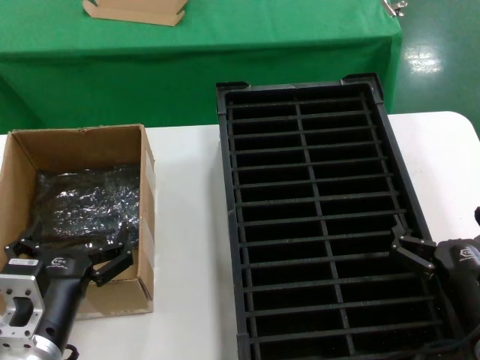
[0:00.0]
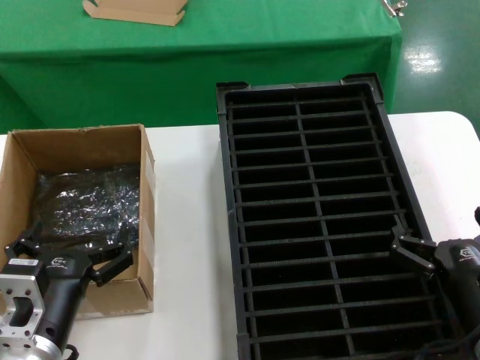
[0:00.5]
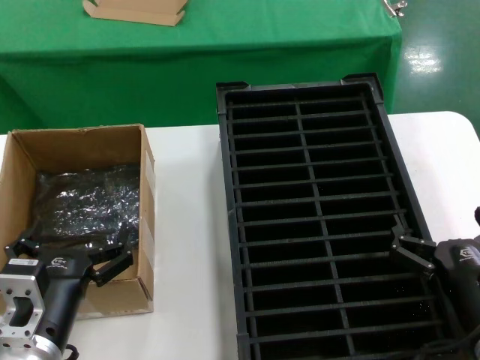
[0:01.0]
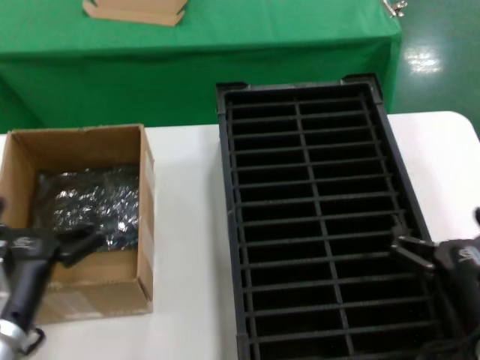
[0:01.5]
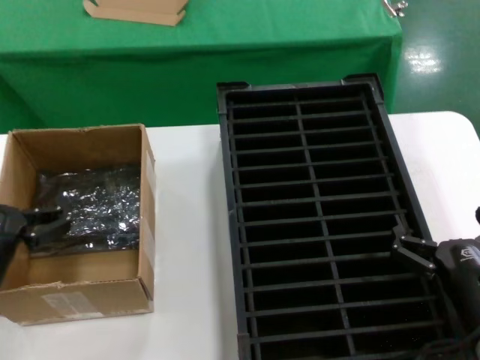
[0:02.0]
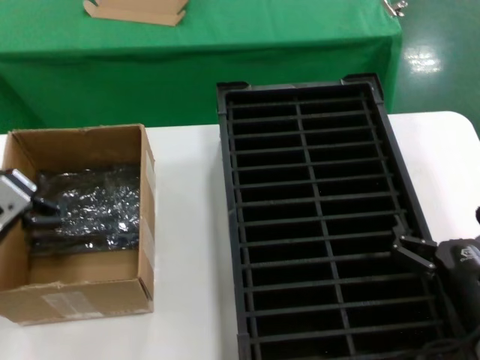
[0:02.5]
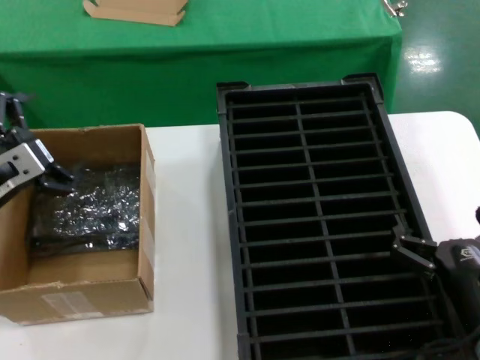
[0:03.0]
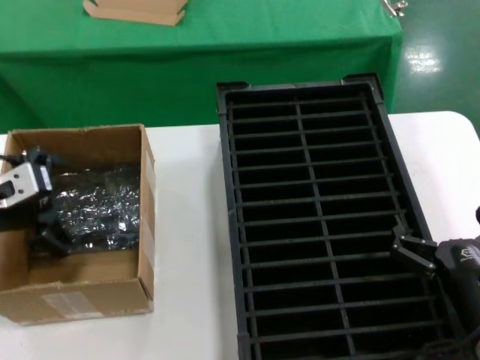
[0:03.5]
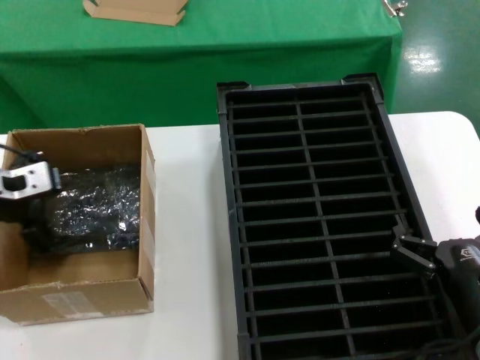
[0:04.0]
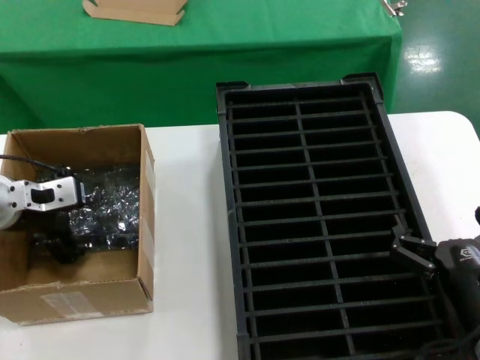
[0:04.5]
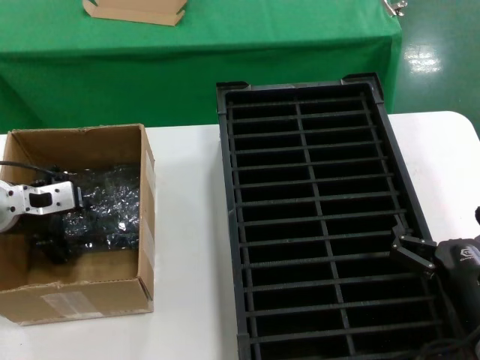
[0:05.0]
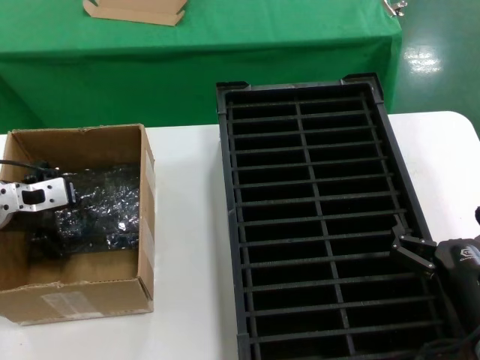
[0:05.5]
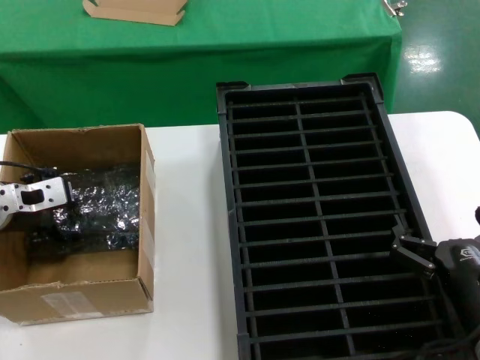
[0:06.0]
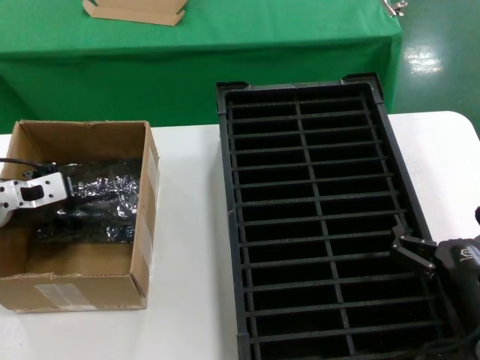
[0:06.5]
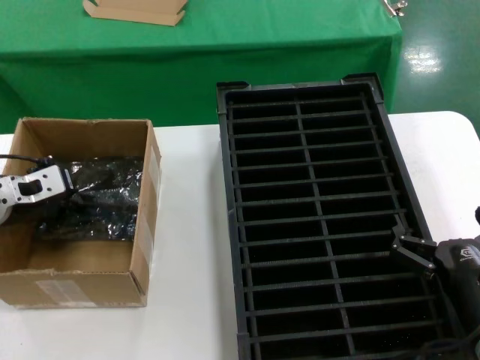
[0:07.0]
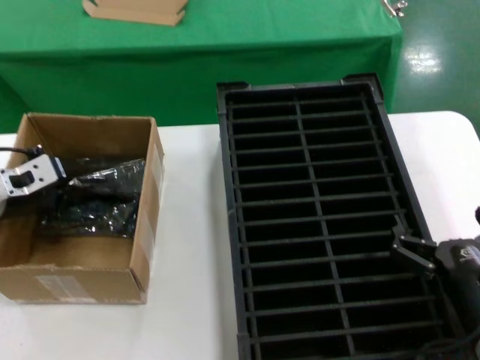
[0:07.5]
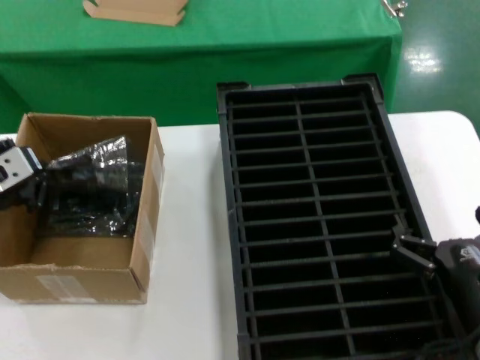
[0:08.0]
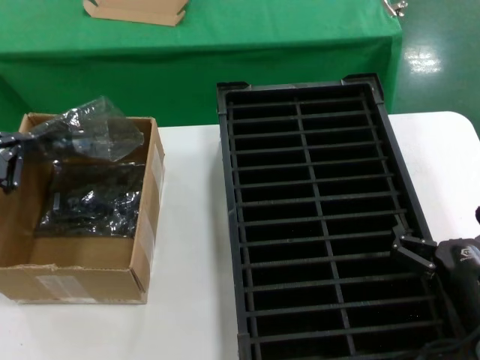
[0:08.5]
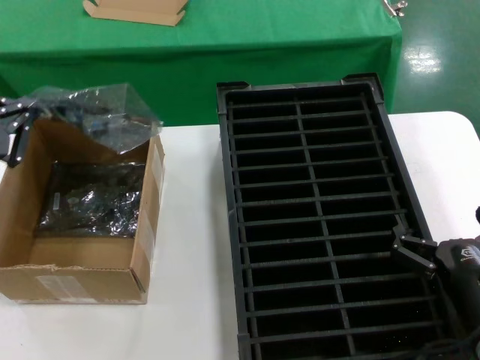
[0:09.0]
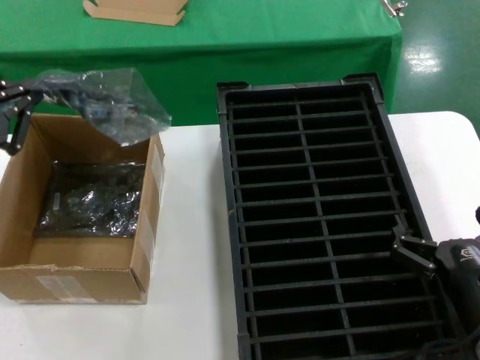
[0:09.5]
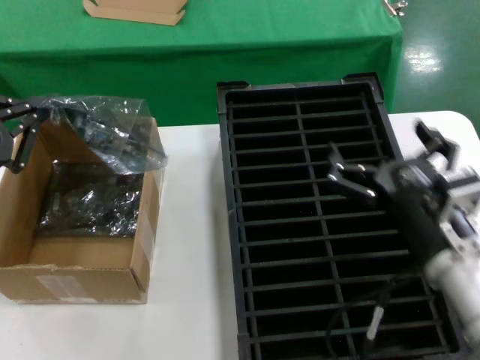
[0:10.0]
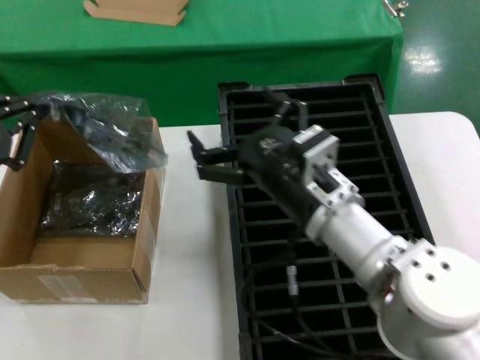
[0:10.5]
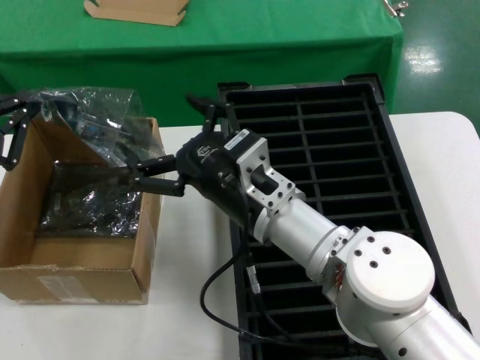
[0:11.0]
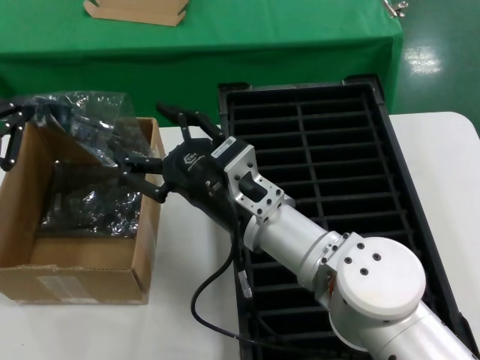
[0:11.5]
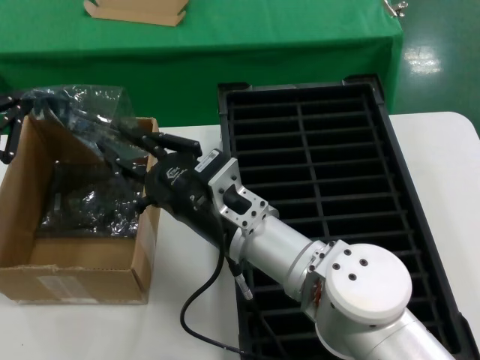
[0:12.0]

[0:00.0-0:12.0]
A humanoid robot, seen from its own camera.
Task of the whole recording: take out graphics card from box remove packaging put into black container.
Step, 0:00.0 to 0:07.0: Grasp the bag.
Step, 0:07.5 to 0:09.5: Lift the bag.
0:00.0 to 0:02.0: The left hand travels upward by some 10 cm.
0:02.0 to 0:04.0: The left hand is displaced forward and to the left by roughly 20 cm.
0:04.0 to 0:06.0: The hands stay close to where they were, moving slightly.
0:06.0 to 0:08.0: The left hand heads backward, covering about 5 cm.
0:08.0 to 0:10.0: The left hand is displaced backward by roughly 10 cm, while the right hand moves upward and to the left, roughly 10 cm.
0:10.0 to 0:12.0: The right hand heads to the left, covering roughly 20 cm.

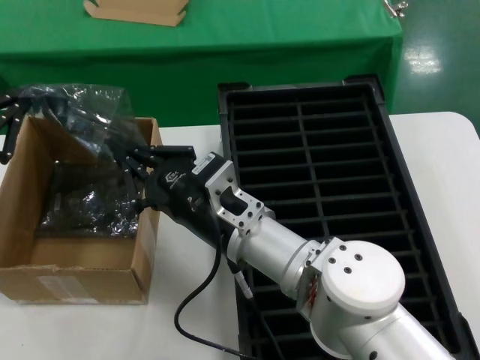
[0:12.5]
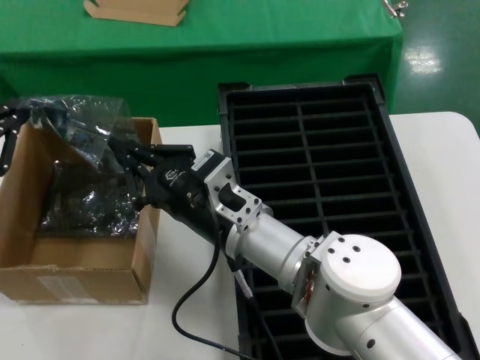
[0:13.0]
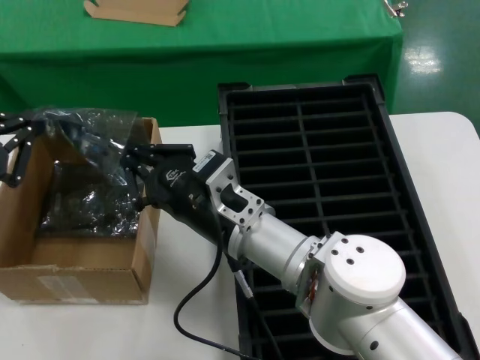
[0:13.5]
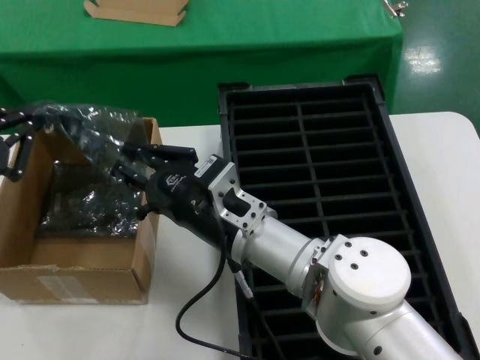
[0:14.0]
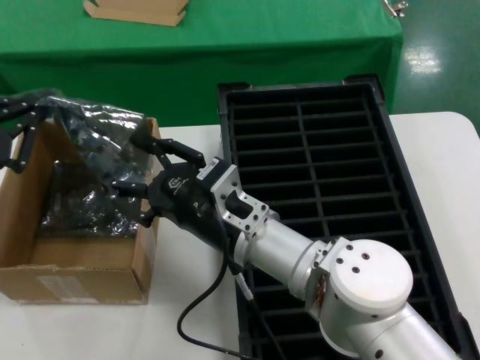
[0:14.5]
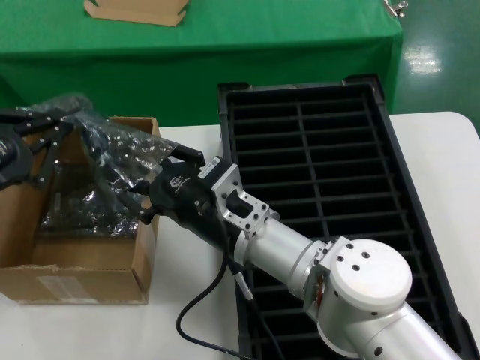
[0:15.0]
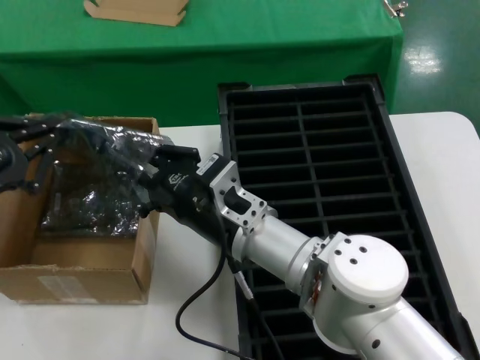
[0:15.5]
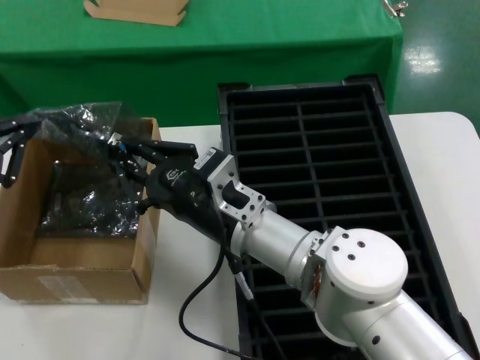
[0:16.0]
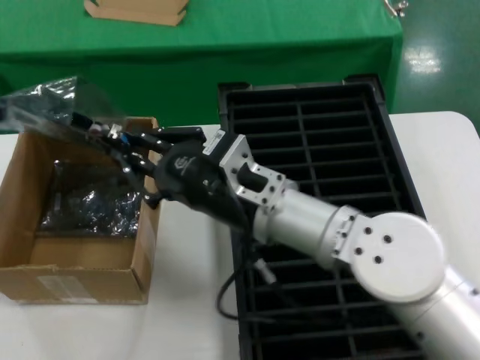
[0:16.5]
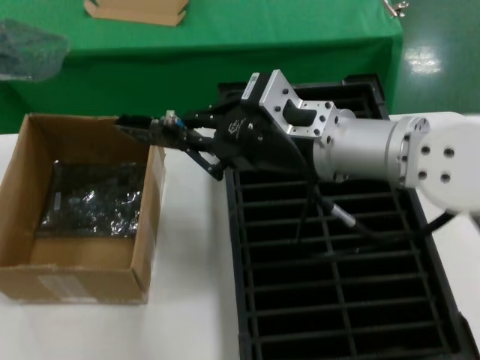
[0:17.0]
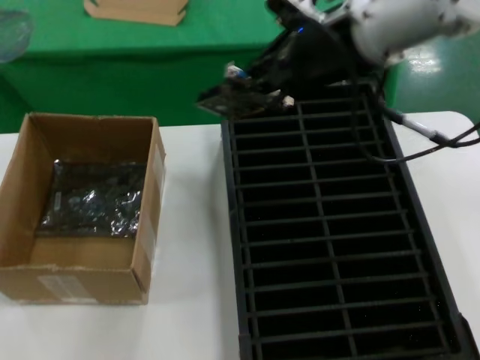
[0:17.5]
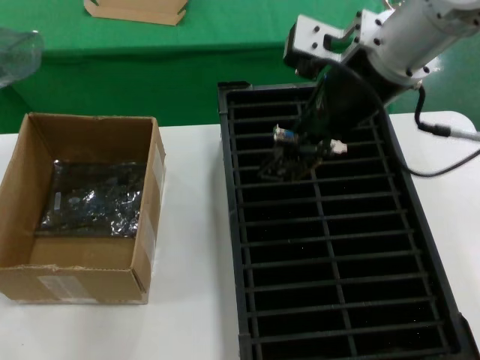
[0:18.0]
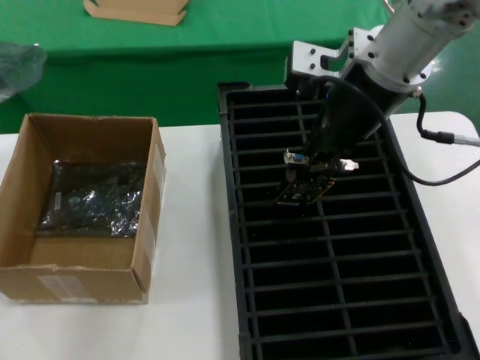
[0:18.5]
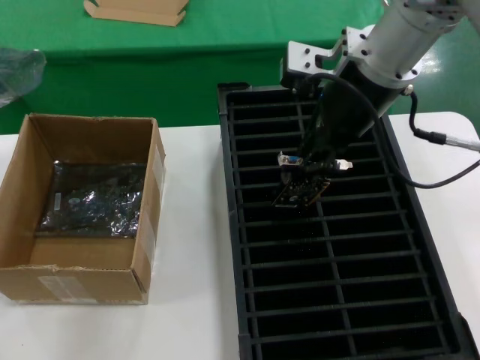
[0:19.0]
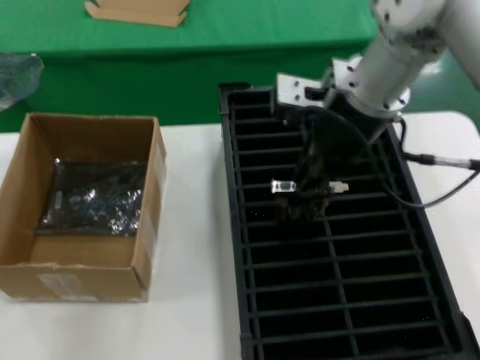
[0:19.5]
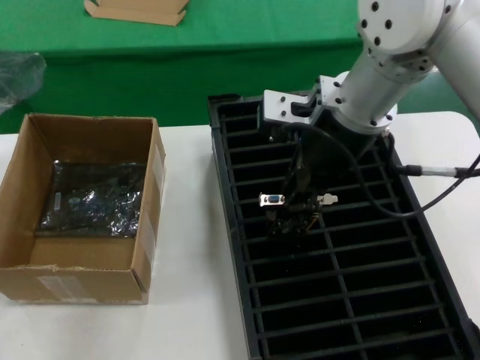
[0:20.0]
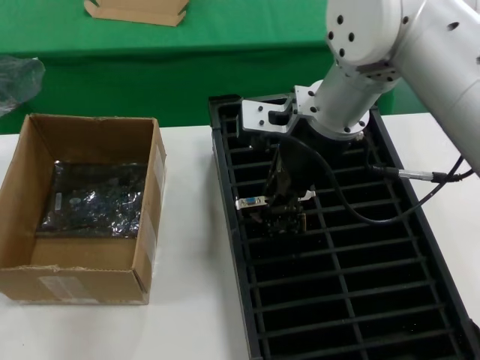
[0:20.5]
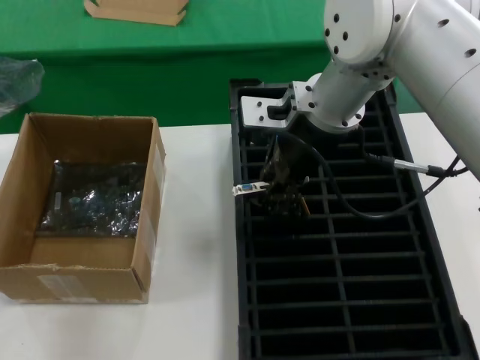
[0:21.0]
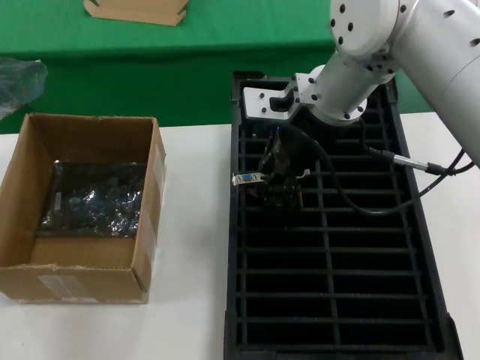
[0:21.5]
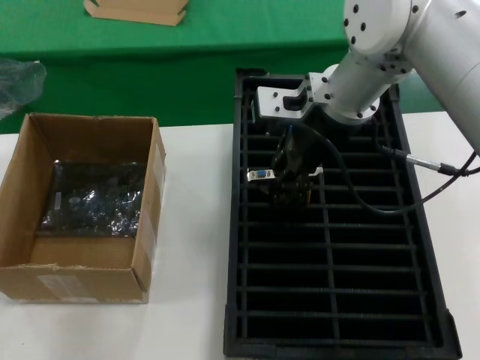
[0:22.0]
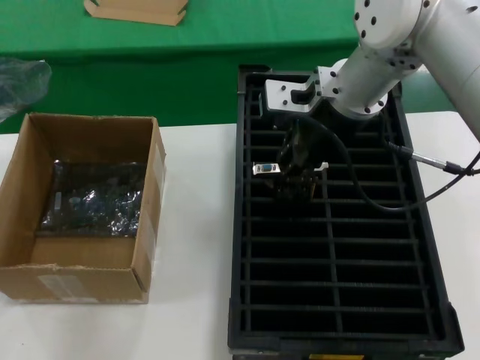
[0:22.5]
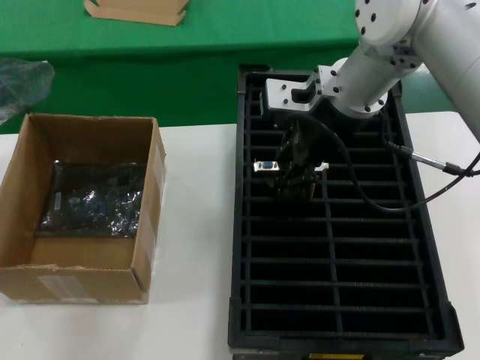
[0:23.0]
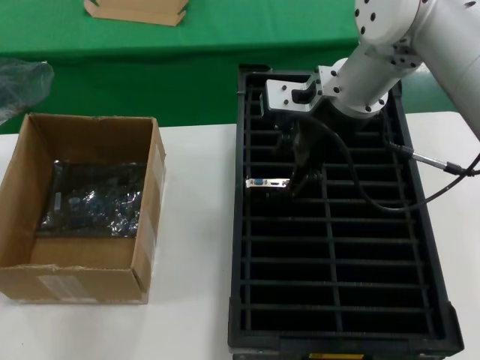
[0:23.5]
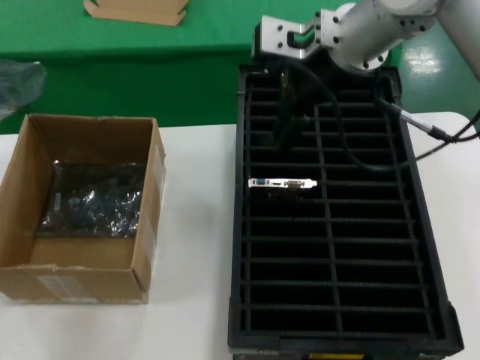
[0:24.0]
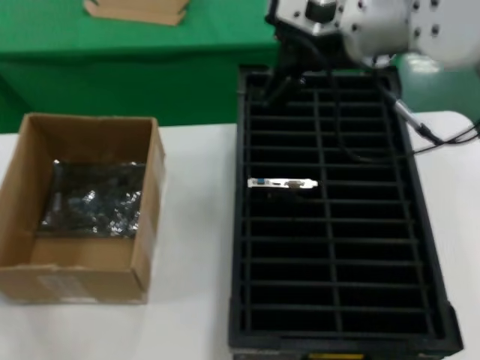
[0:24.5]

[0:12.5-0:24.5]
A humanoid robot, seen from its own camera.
Task of the whole recording: take out graphics card from box remove packaging put into black container.
Step, 0:12.5 to 0:16.5: Take out the hard disk of the bag.
Step, 0:17.0 to 0:23.5: Place the hard disk in the hard disk enclosure.
0:12.5 to 0:14.5: The hands stay close to where they were, moving slightly.
0:14.5 to 0:16.5: The right hand goes about 5 cm upward.
0:16.5 to 0:18.5: The right hand heads upward, covering approximately 20 cm, while the left hand shifts some 10 cm downward and to the left.
0:18.5 to 0:20.5: The right hand moves downward, some 5 cm.
0:22.5 to 0:24.5: The right hand shifts by about 5 cm.

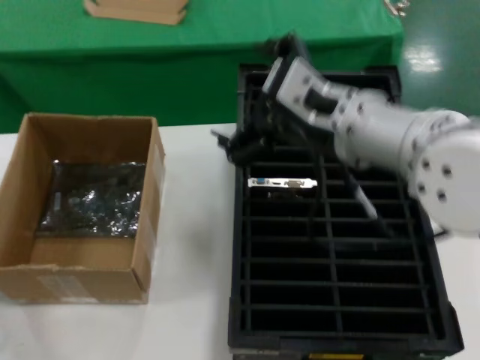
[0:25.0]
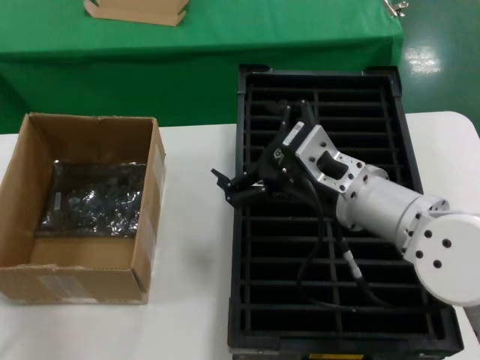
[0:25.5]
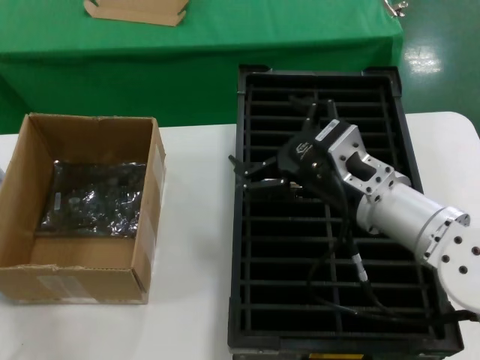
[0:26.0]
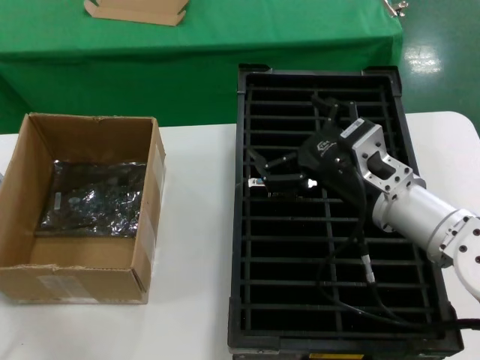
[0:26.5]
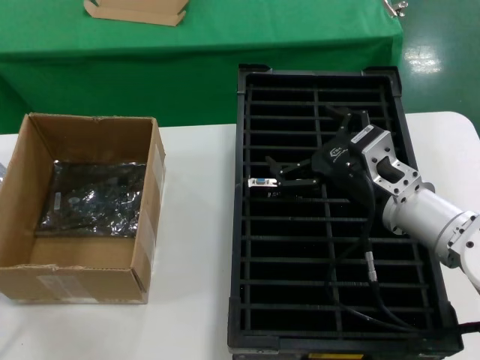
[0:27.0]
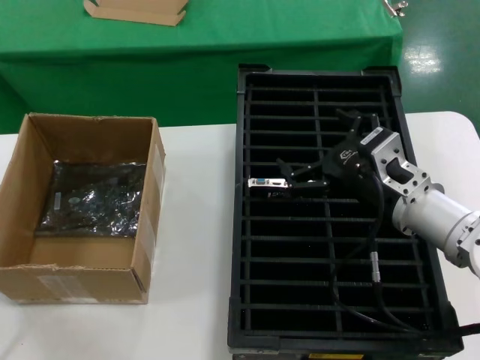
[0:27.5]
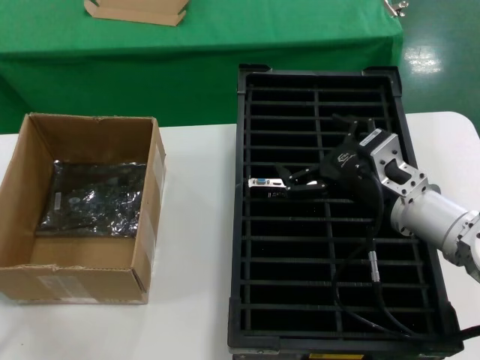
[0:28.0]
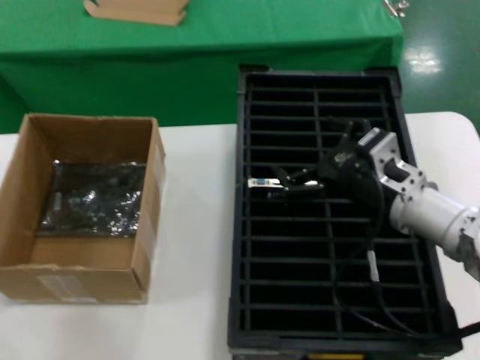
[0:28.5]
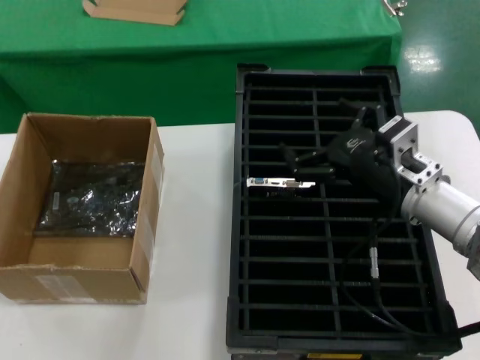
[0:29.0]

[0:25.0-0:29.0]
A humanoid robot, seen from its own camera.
Task of the whole recording: take out graphics card from box remove packaging put into black container.
0:25.0 to 0:27.0: The right hand travels downward and to the right by roughly 15 cm.
0:27.0 to 0:29.0: The left hand heads upward and to the right, covering roughly 15 cm.
